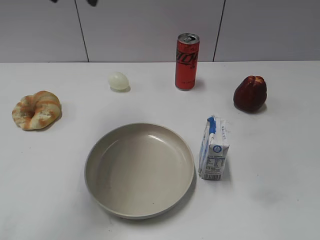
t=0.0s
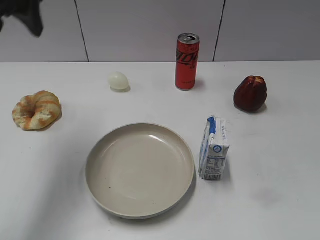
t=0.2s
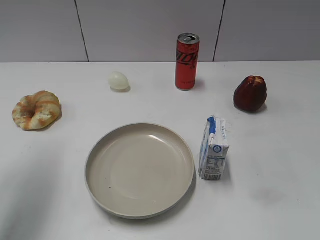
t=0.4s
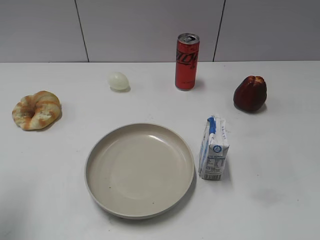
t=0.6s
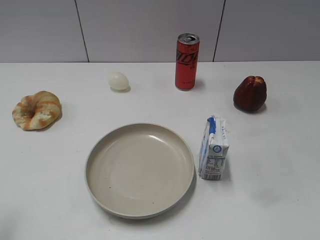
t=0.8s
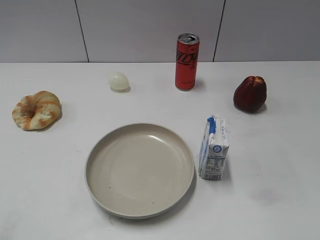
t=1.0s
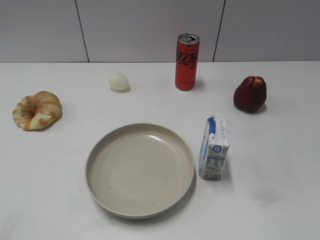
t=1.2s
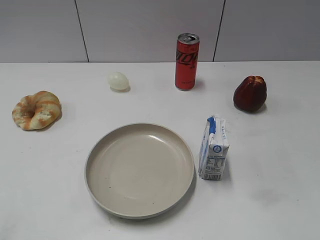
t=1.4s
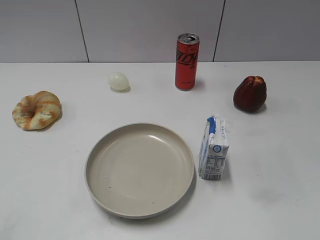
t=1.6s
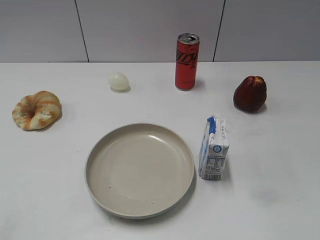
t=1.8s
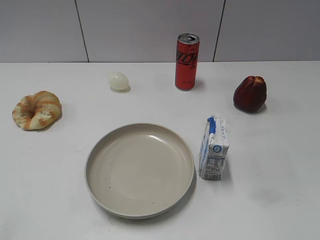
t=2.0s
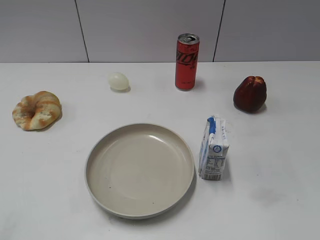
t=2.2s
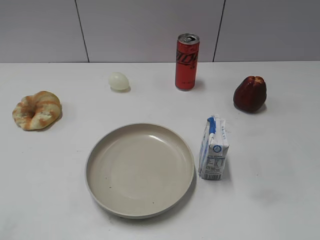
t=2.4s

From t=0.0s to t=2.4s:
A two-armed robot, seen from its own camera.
From t=0.0s to t=1.2s: The left gripper is displaced backward and to the left by roughly 35 cm.
